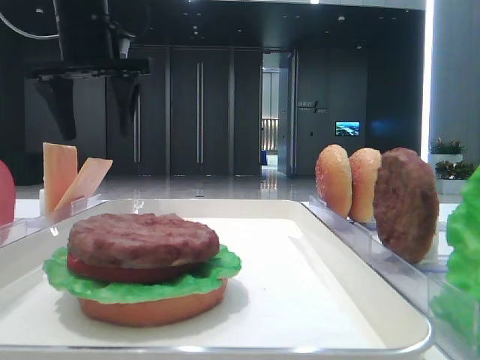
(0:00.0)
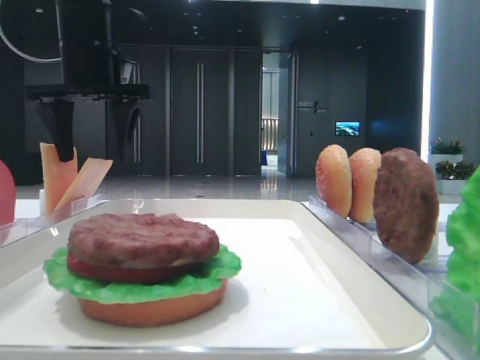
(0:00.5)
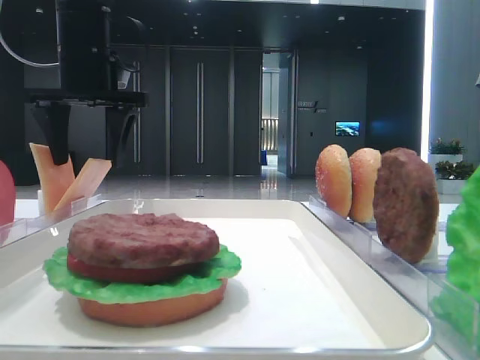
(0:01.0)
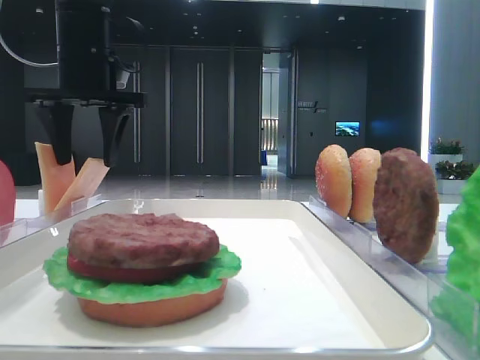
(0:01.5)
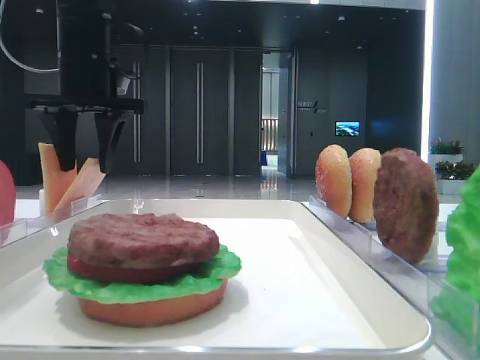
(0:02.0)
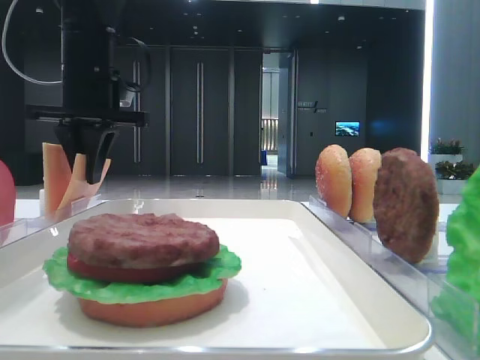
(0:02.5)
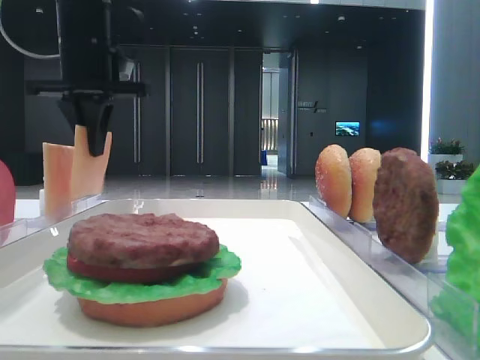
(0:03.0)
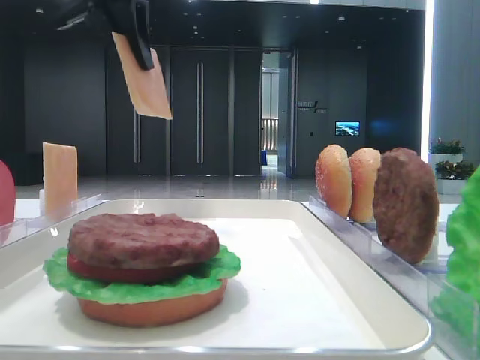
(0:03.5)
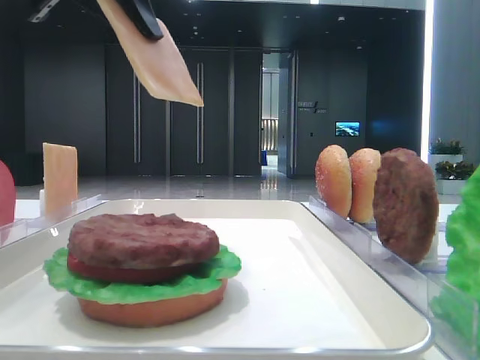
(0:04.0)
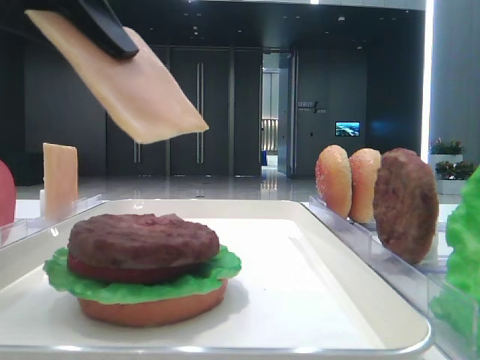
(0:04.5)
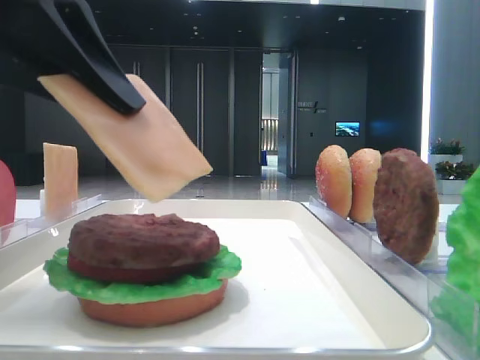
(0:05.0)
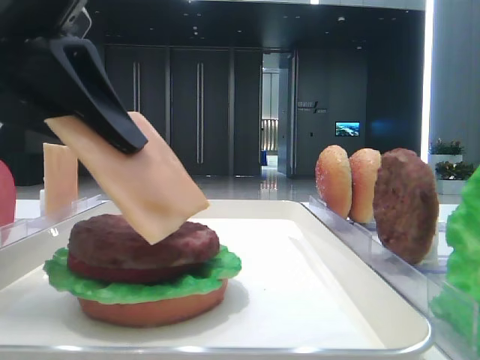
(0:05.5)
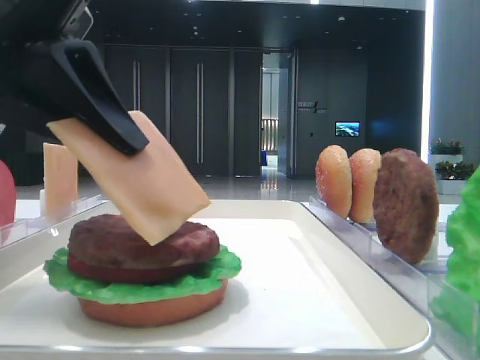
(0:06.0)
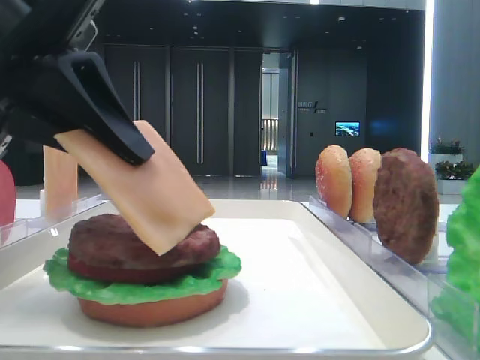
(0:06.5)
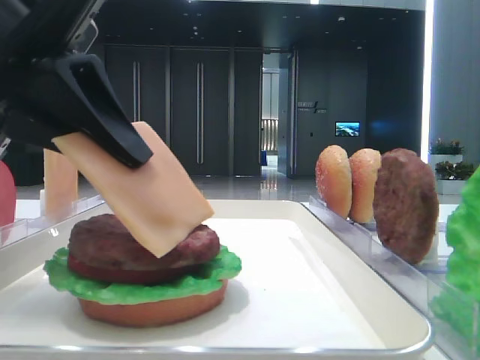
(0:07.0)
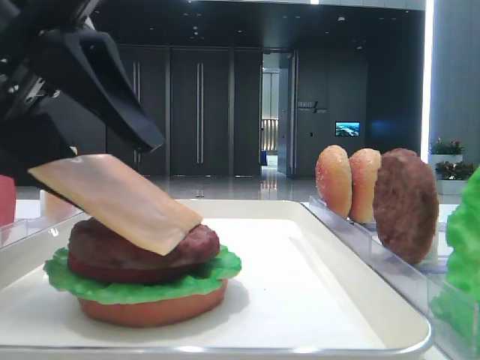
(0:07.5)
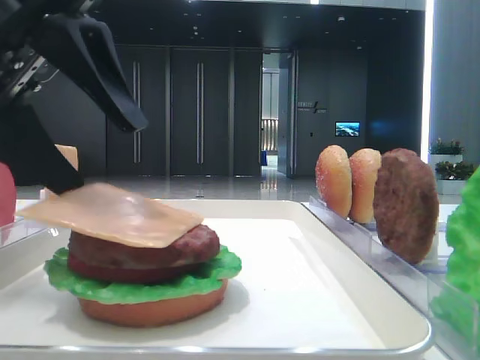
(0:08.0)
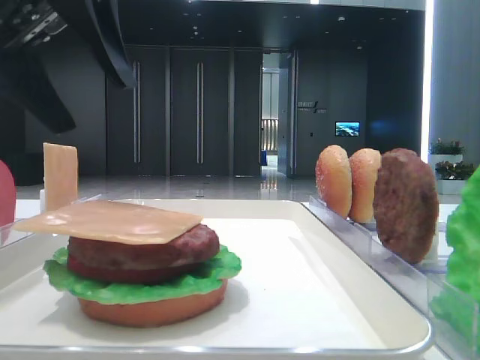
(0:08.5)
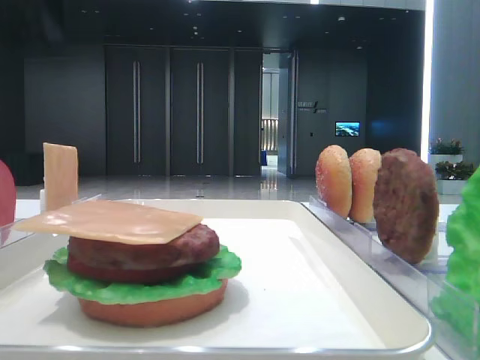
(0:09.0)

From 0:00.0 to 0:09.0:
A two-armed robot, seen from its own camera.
Step, from 0:00.0 to 0:02.5: Pick up the cheese slice with the left hand.
Step, from 0:03.0 to 0:08.0: Place the cheese slice on the patty with the left hand.
From 0:00.0 to 0:02.0: The grippers stay close to where they were, moving slightly.
From 0:02.0 to 0:04.5: The left gripper heads backward, covering about 25 cm, and closes its fingers.
From 0:04.5 to 0:07.0: The left gripper goes about 5 cm downward.
From 0:07.0 to 0:09.0: The left gripper moves upward, forward and to the left, about 15 cm, and opens.

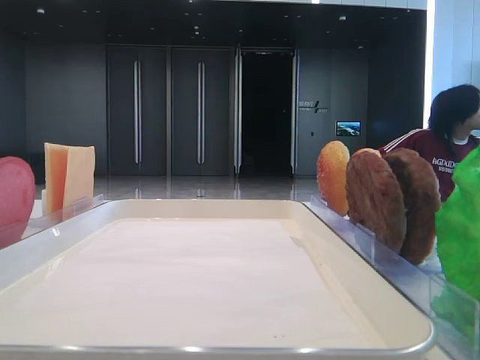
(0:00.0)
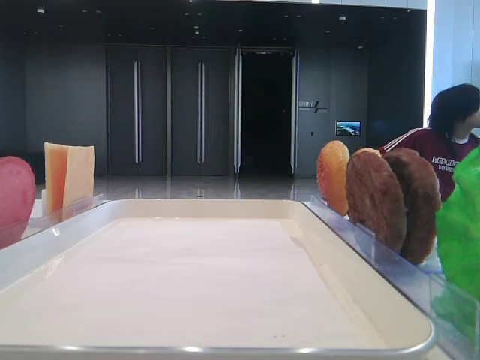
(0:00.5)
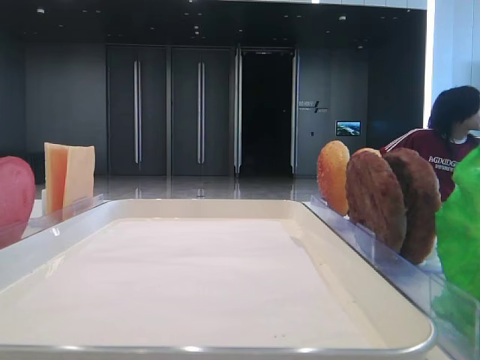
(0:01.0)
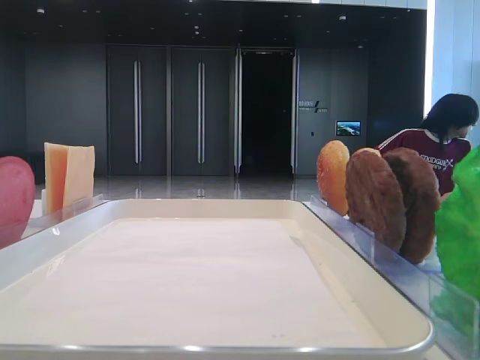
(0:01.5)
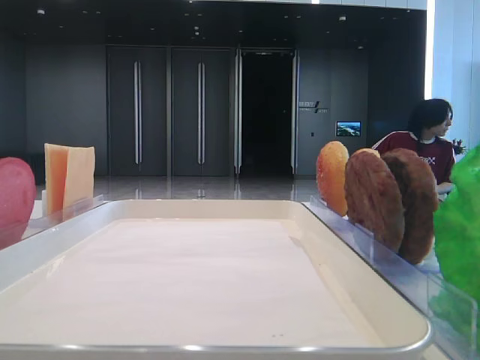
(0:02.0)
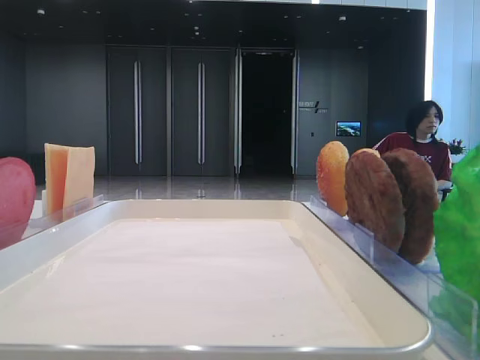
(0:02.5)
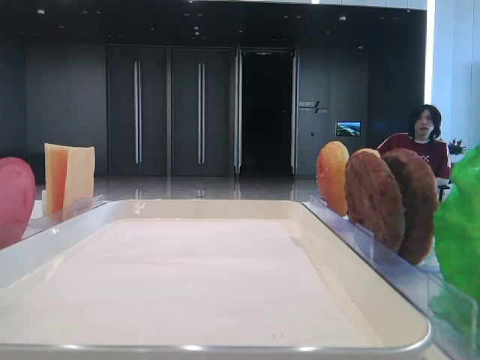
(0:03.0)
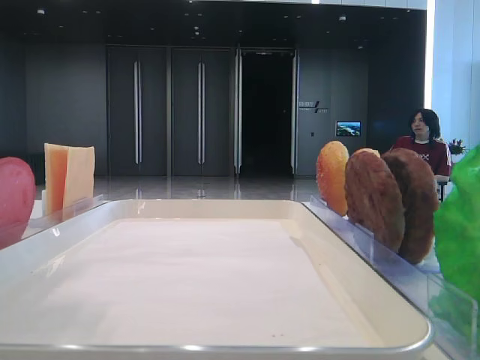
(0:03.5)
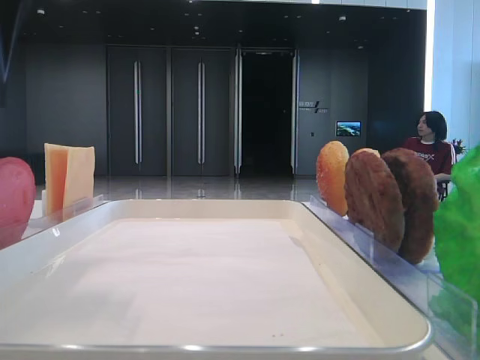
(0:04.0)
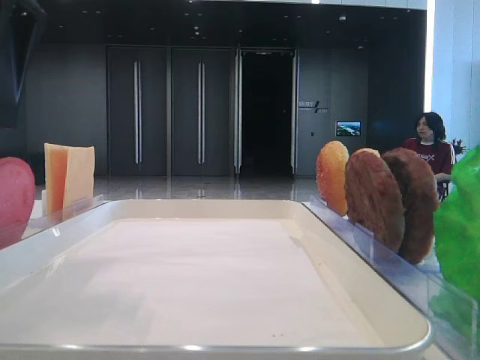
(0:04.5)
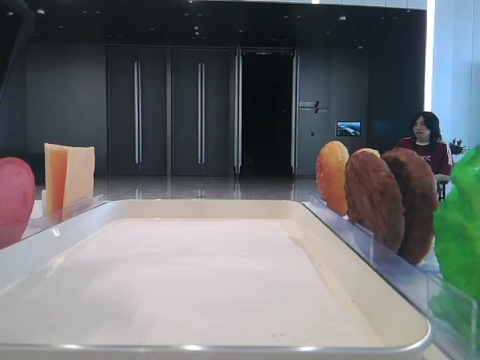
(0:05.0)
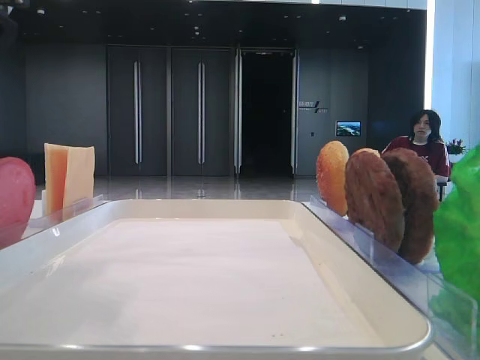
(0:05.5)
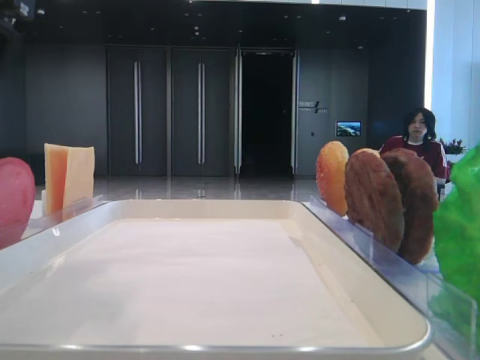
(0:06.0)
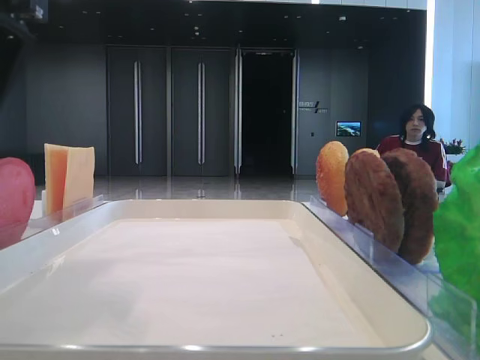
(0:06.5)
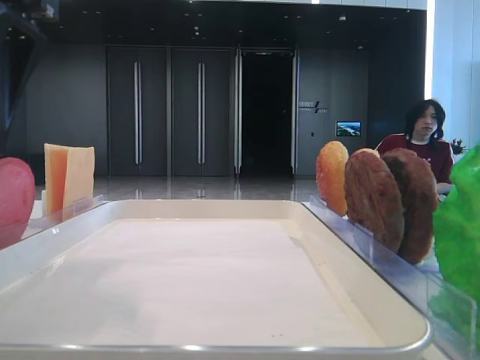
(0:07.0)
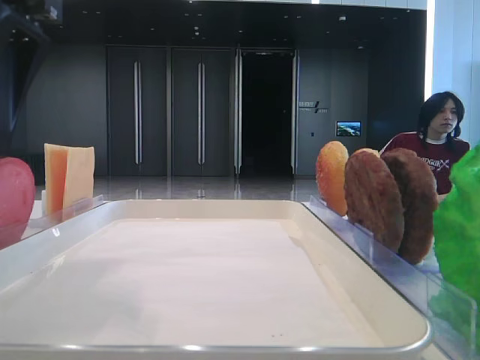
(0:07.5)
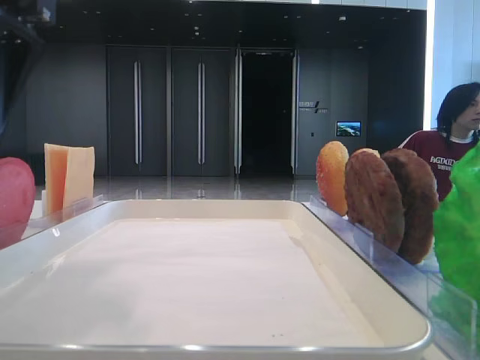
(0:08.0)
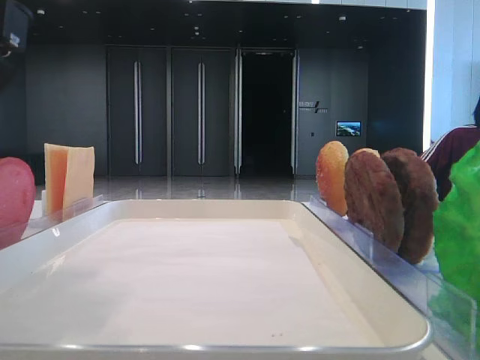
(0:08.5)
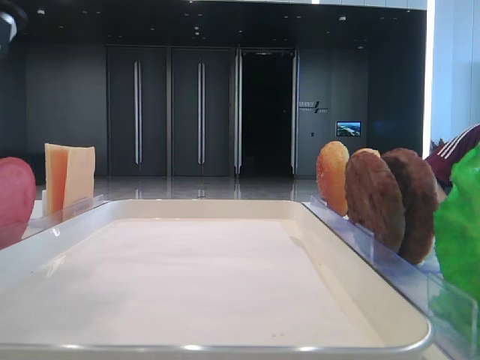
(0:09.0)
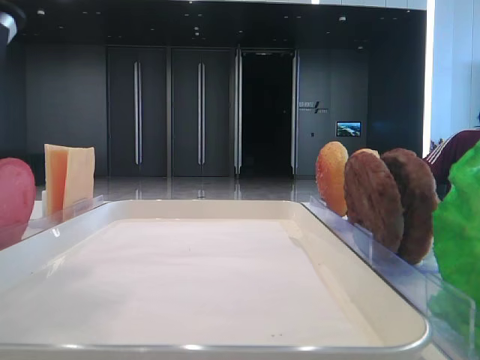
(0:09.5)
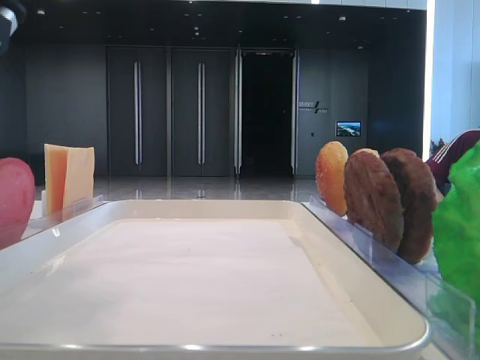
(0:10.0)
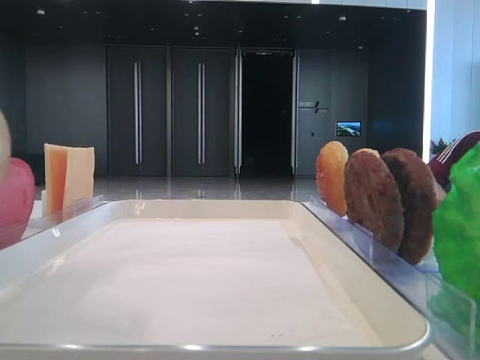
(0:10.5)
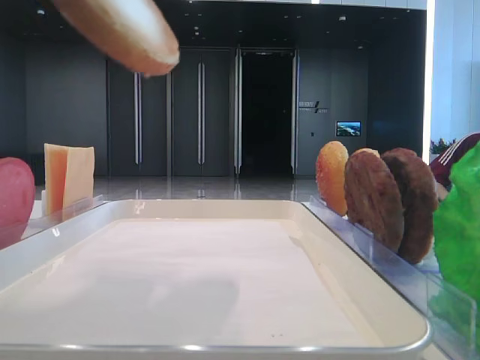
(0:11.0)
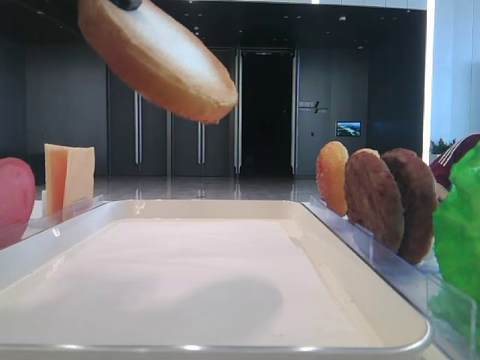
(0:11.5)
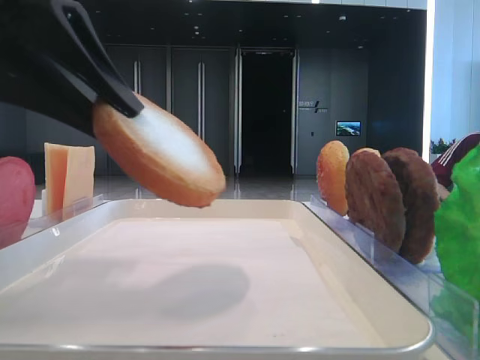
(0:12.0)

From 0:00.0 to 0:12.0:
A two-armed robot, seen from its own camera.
Step, from 0:00.0 to 0:09.5: Pick up the bottom bread with the left hand.
From 0:02.0 to 0:04.0: The left gripper heads to the right, covering roughly 15 cm.
From 0:04.0 to 0:06.0: The grippers stay close to where they were, moving slightly.
From 0:06.0 to 0:08.0: Both grippers stay put.
From 0:10.0 to 0:12.0: The left gripper goes upward and returns, about 10 cm each way.

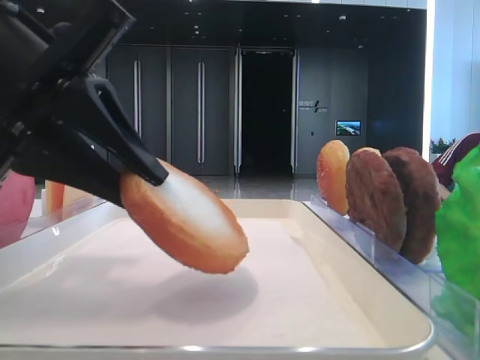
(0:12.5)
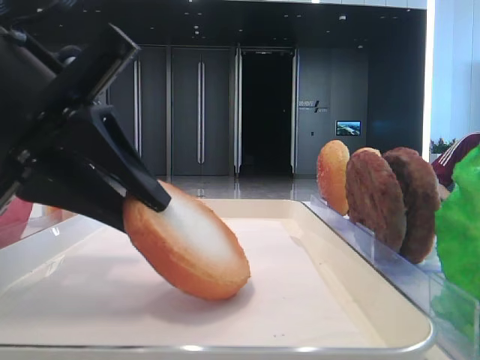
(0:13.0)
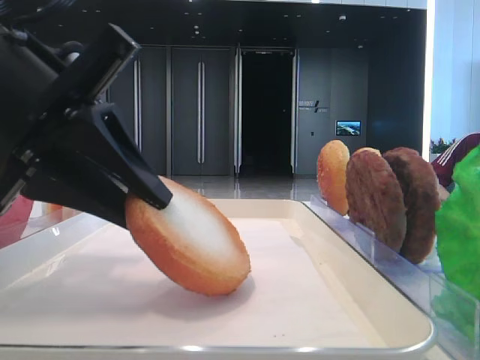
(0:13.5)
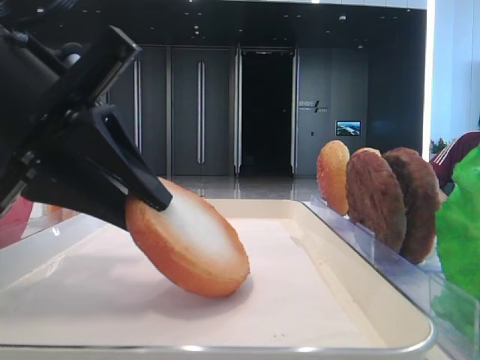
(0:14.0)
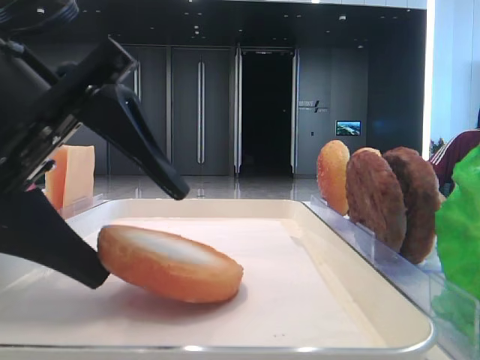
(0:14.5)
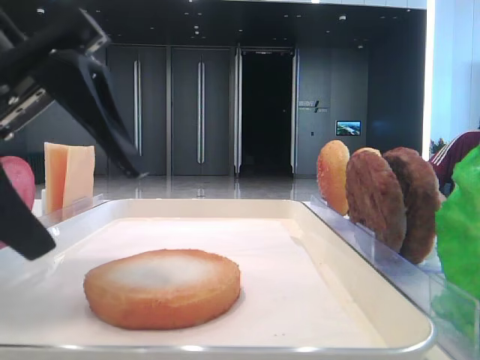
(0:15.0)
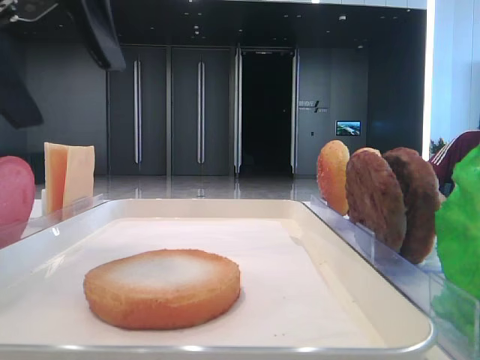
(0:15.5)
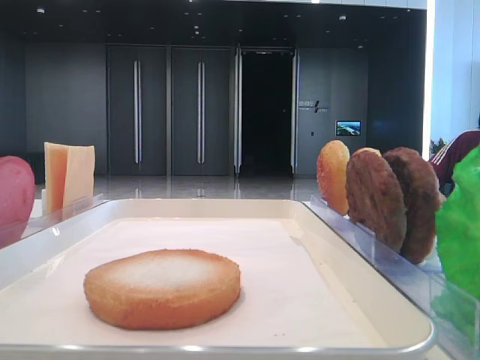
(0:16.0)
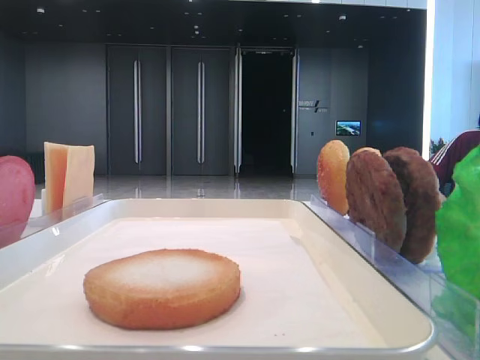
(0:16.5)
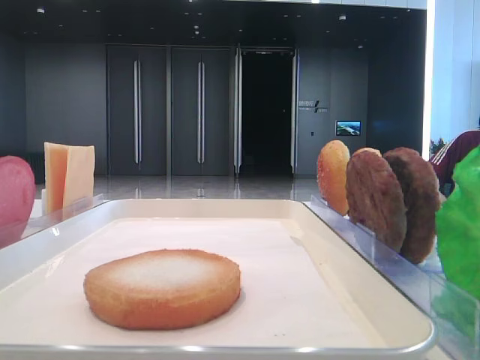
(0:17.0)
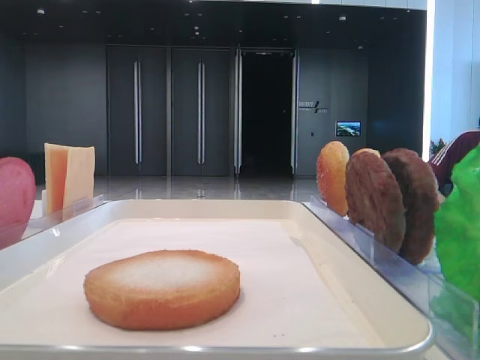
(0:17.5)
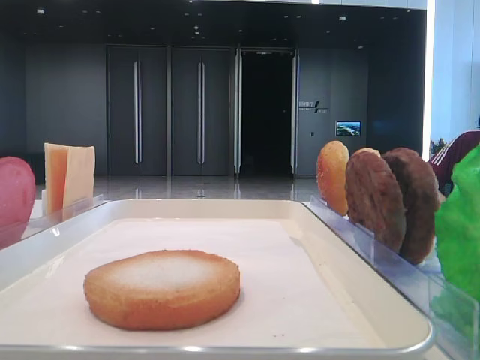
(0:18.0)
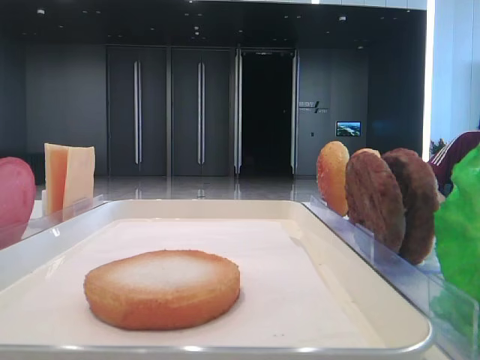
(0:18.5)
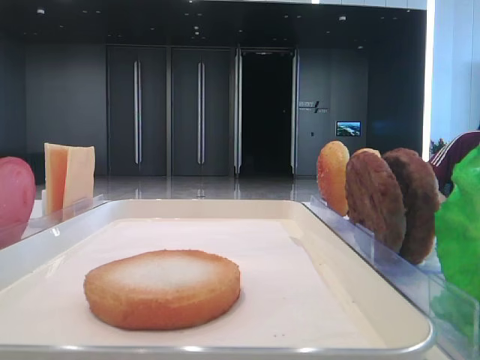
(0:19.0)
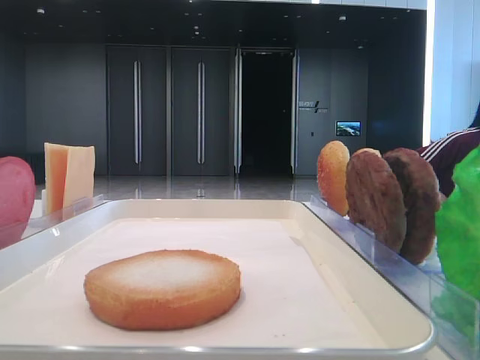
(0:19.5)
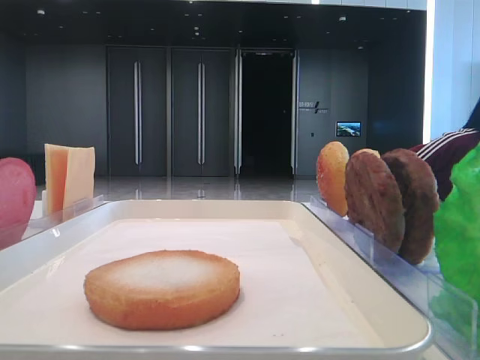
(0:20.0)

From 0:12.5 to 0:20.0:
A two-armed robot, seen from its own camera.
Step, from 0:12.5 to 0:14.5: Place the bread on the tray with the left hand.
From 0:12.5 to 0:14.5: The left gripper opens its fingers.
From 0:14.5 to 0:16.5: The left gripper moves to the left and upward, about 20 cm.
From 0:16.5 to 0:18.0: The left gripper is displaced backward by approximately 25 cm.
